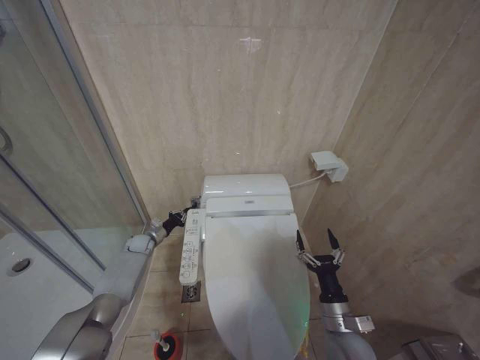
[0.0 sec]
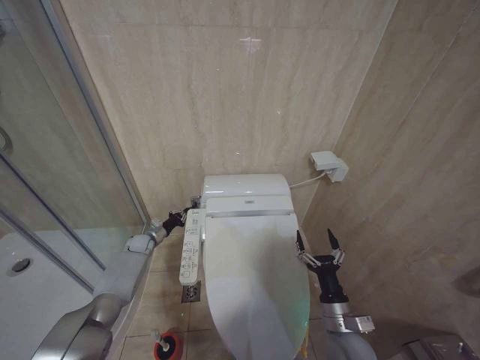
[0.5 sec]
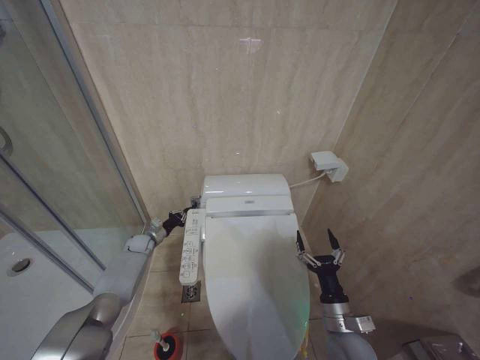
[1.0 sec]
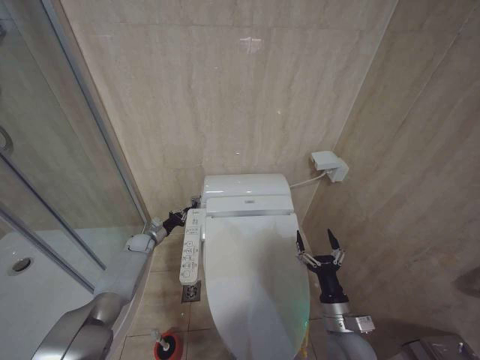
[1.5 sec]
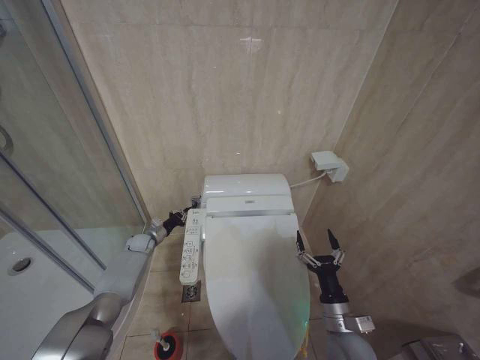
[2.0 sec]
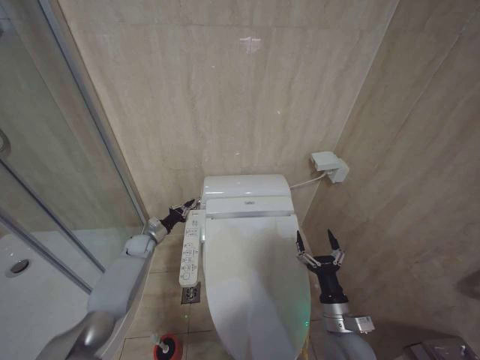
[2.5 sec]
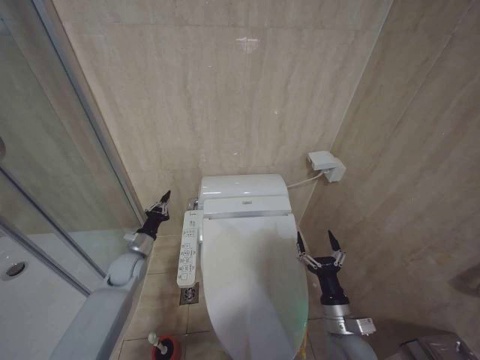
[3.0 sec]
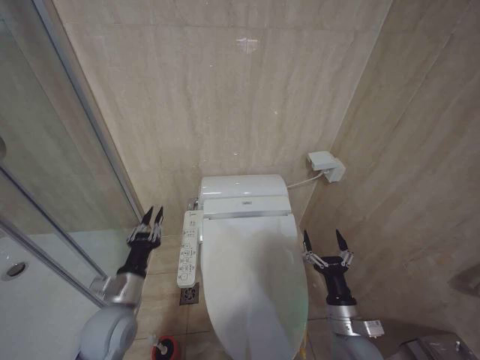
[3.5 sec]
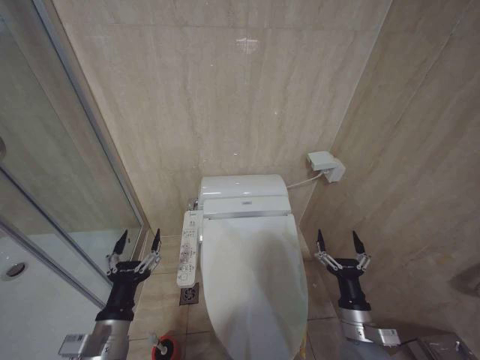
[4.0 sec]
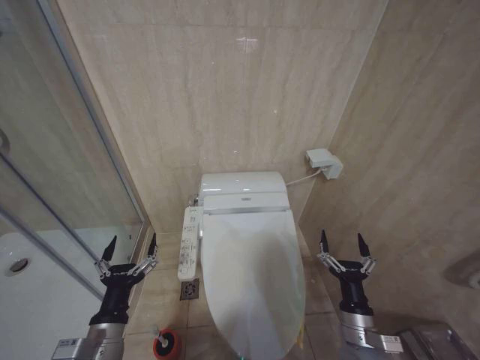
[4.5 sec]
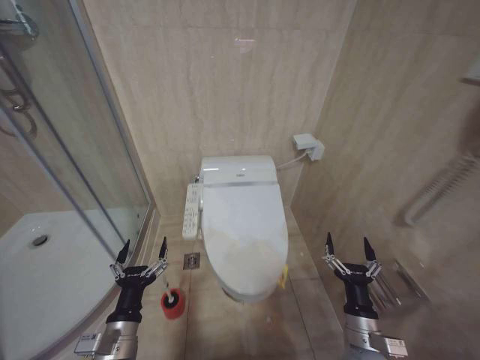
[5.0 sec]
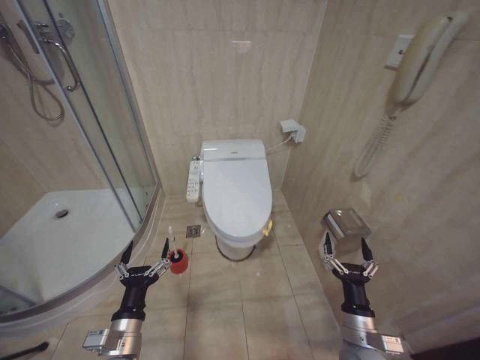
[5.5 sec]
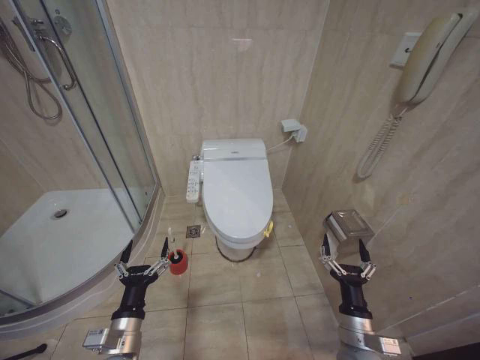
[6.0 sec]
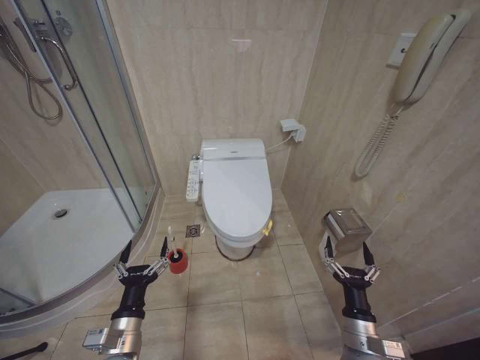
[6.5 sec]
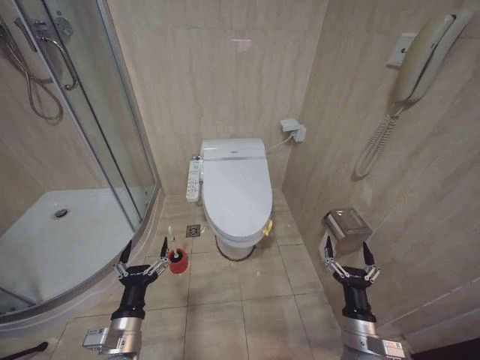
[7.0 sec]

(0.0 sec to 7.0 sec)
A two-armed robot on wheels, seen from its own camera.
Task of the whole recording: Open the toilet lid, clean the toilet bowl with a toilet brush, close the toilet lid, and flush.
0.0 sec - 2.0 sec: Neither gripper changes place.
2.0 sec - 3.5 sec: The left gripper shifts roughly 30 cm backward and upward.
3.5 sec - 5.0 sec: The left gripper shifts roughly 10 cm backward, and opens its fingers.
